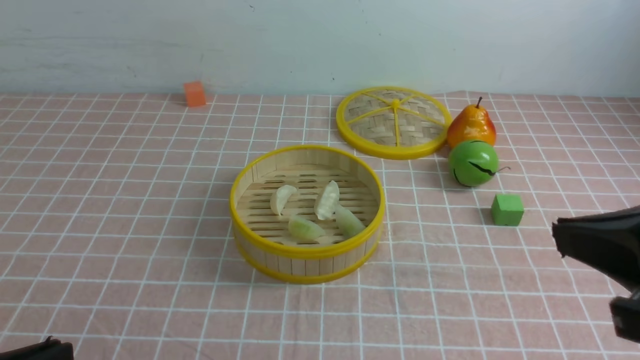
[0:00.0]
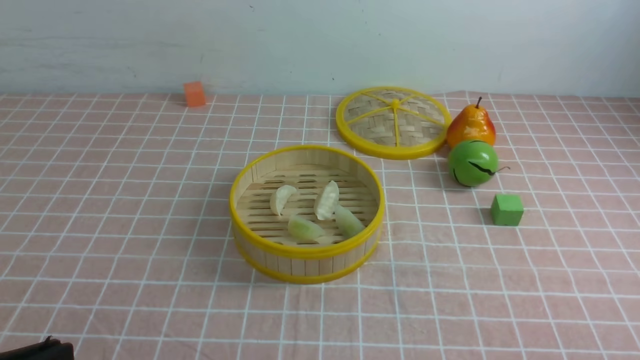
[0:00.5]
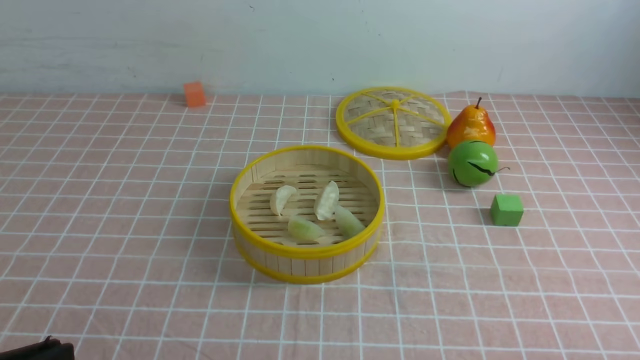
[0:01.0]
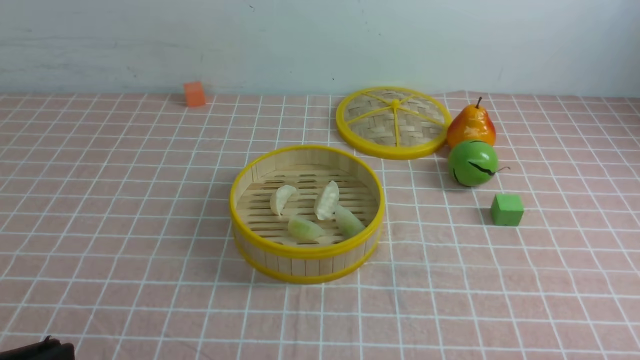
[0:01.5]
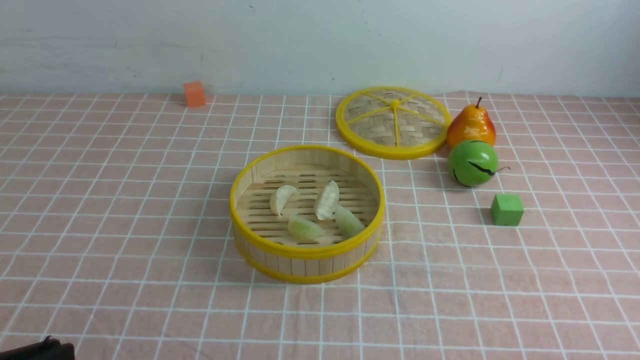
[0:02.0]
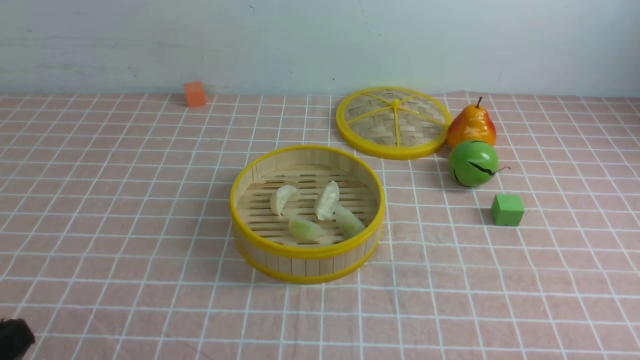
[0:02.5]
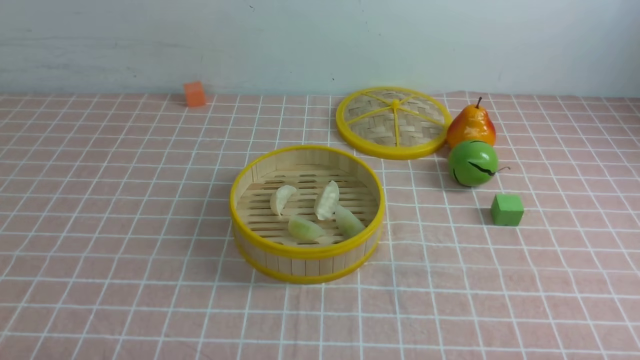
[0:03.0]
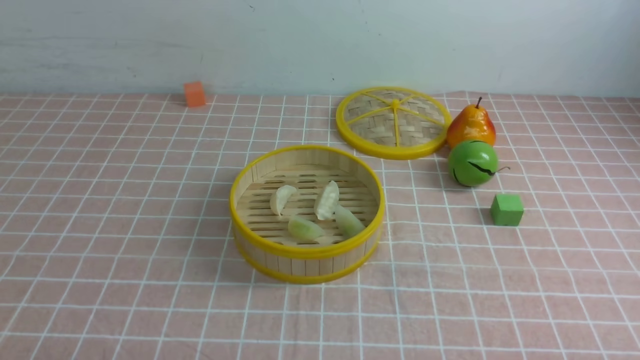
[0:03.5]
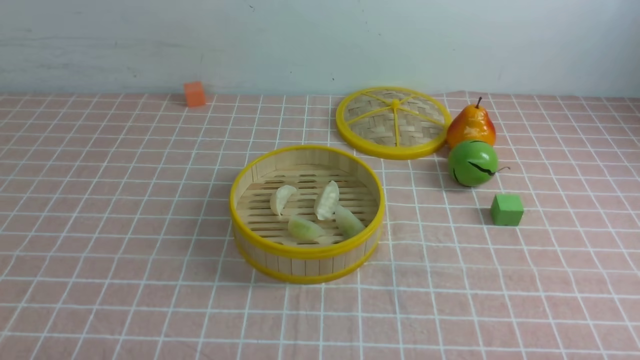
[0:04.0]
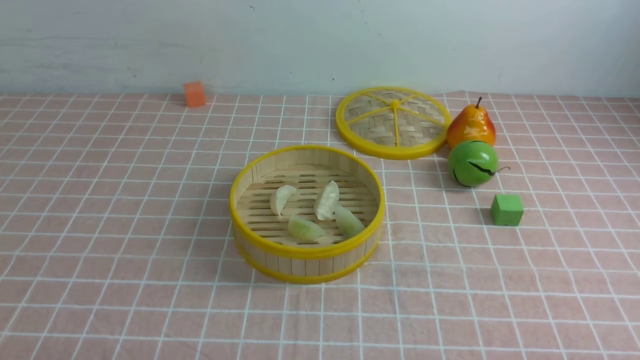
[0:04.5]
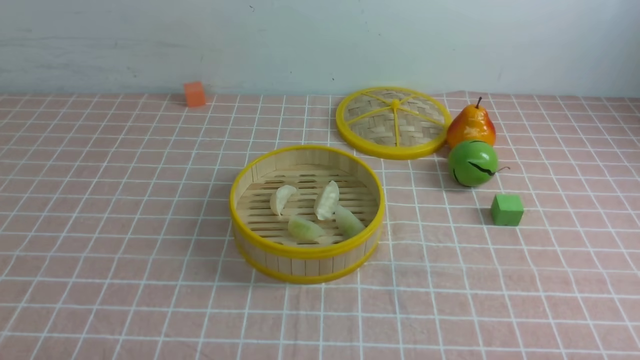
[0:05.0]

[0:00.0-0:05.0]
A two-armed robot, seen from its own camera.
Task of the whole recording: put the dumplings into the steamer on the table with the pink tablecloth.
0:00.0 to 0:02.5: The right gripper travels downward, to the right and backward by approximately 20 cm.
